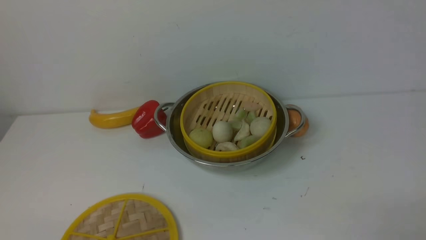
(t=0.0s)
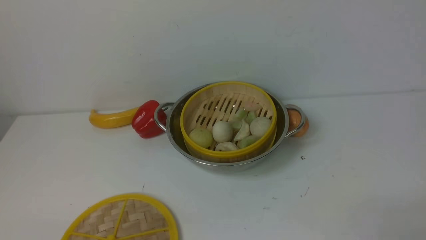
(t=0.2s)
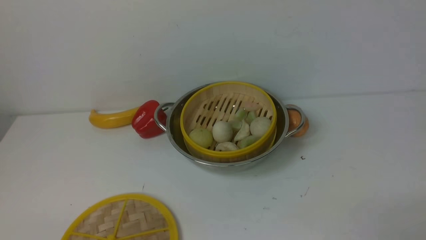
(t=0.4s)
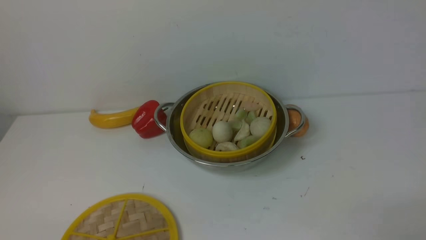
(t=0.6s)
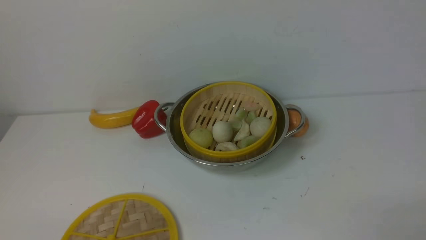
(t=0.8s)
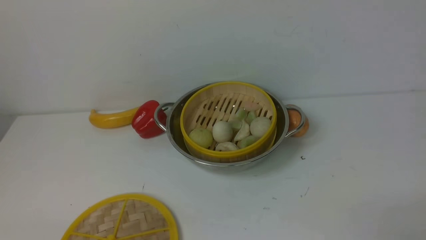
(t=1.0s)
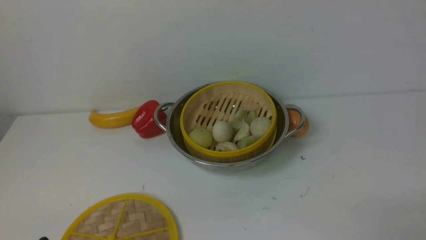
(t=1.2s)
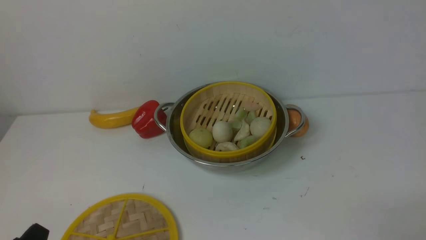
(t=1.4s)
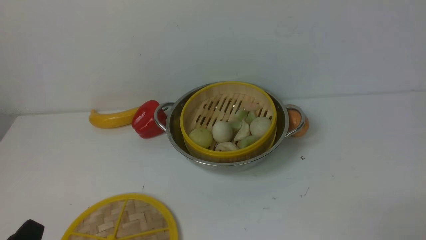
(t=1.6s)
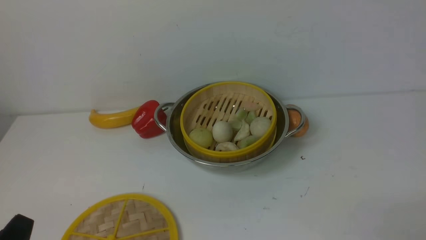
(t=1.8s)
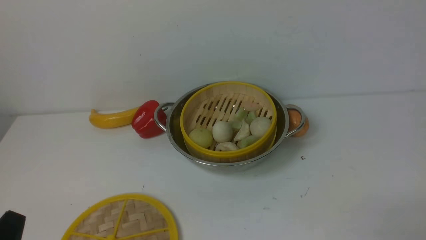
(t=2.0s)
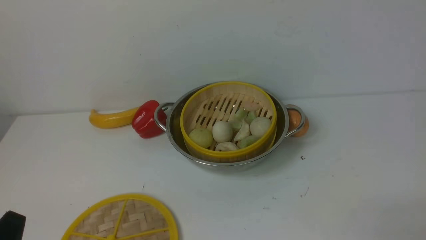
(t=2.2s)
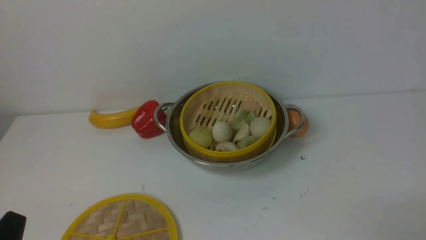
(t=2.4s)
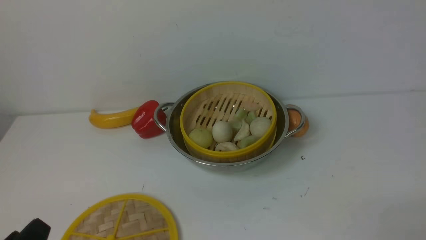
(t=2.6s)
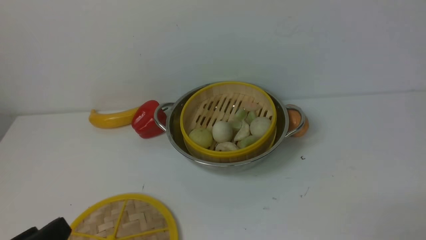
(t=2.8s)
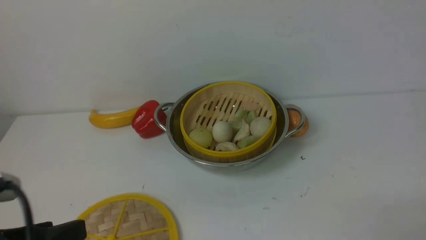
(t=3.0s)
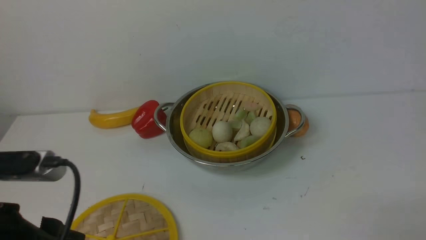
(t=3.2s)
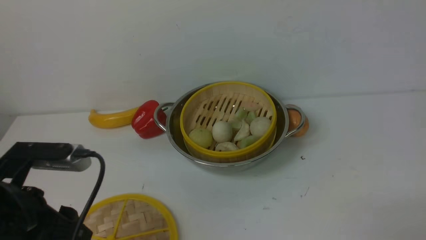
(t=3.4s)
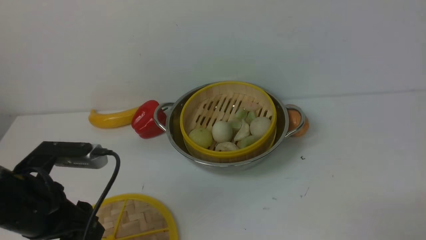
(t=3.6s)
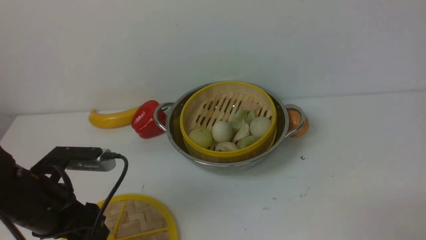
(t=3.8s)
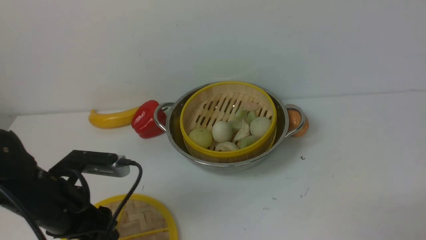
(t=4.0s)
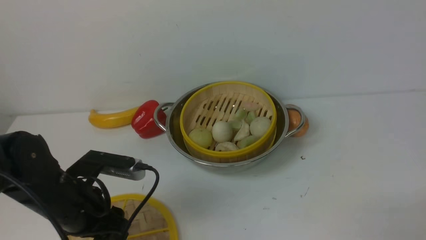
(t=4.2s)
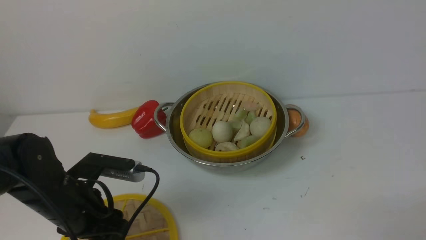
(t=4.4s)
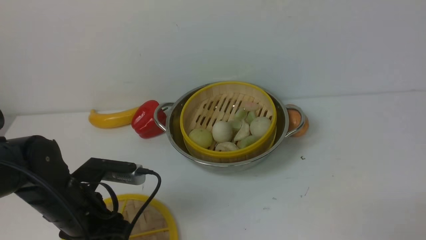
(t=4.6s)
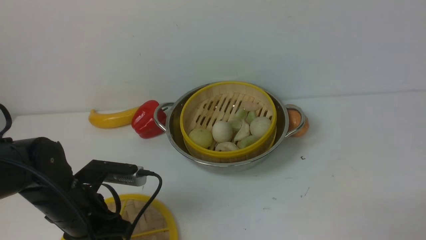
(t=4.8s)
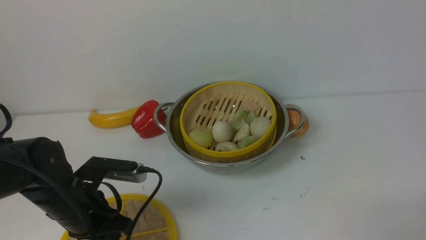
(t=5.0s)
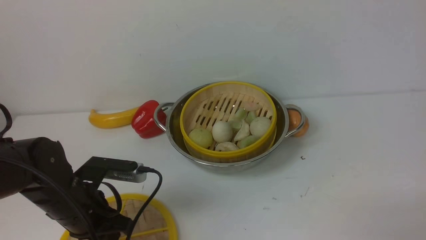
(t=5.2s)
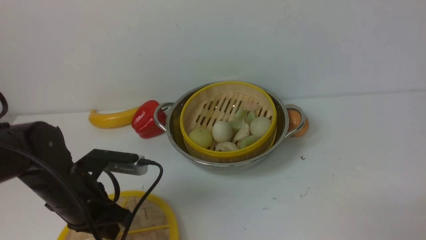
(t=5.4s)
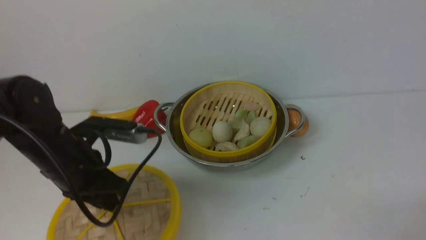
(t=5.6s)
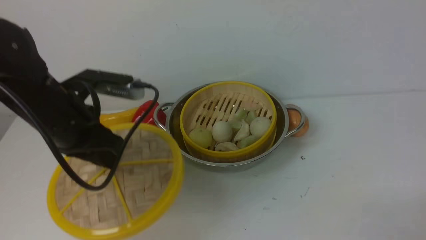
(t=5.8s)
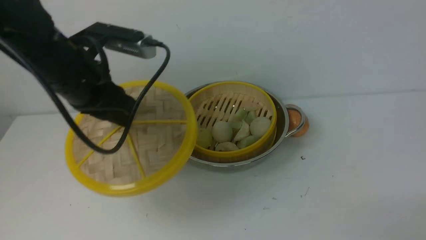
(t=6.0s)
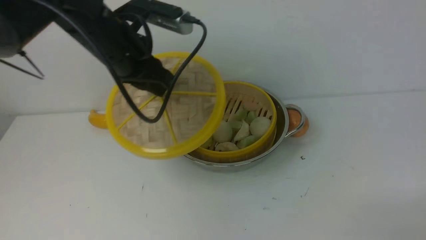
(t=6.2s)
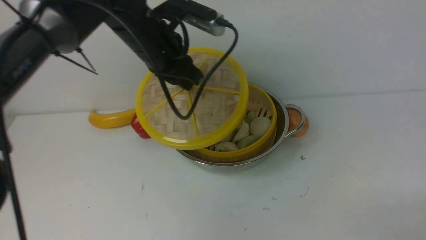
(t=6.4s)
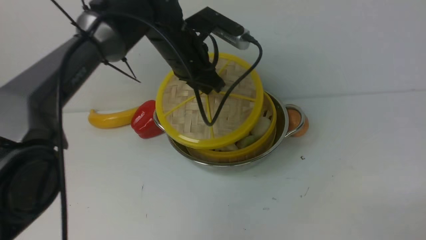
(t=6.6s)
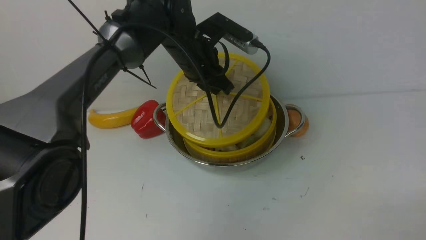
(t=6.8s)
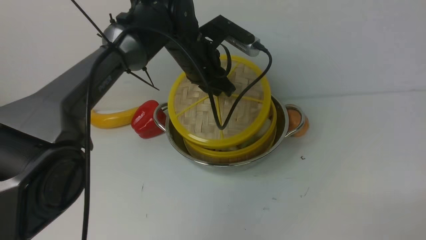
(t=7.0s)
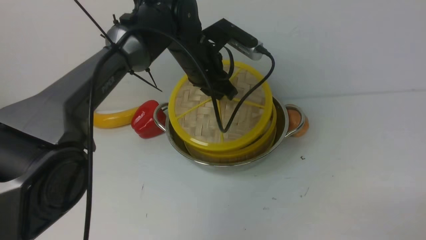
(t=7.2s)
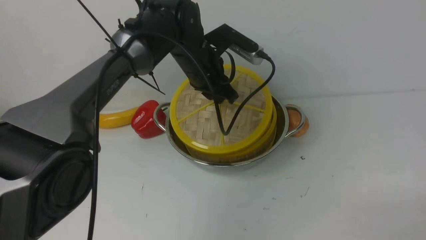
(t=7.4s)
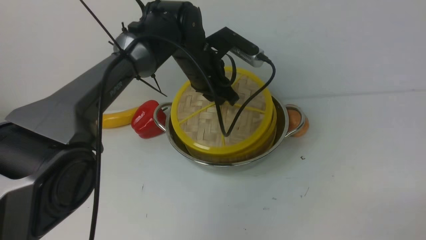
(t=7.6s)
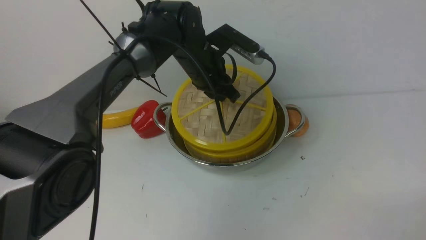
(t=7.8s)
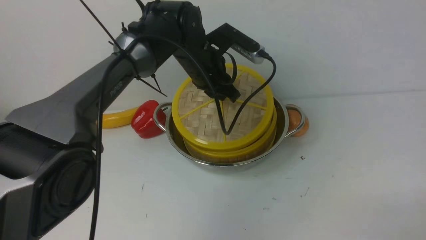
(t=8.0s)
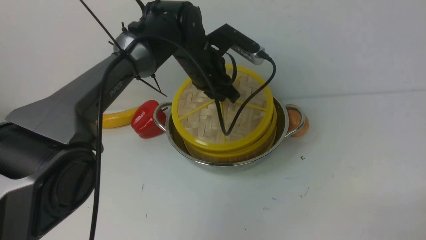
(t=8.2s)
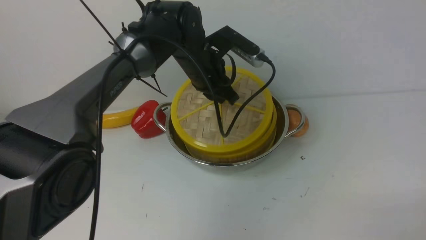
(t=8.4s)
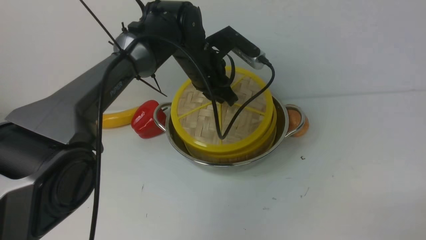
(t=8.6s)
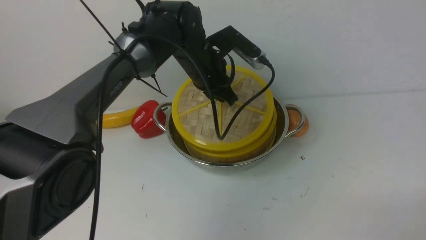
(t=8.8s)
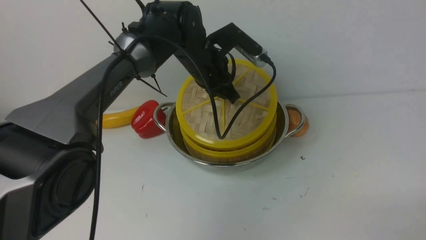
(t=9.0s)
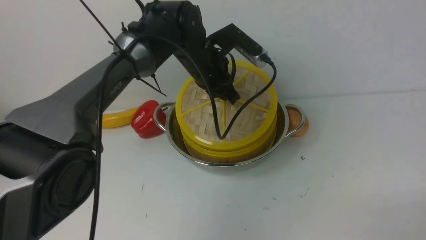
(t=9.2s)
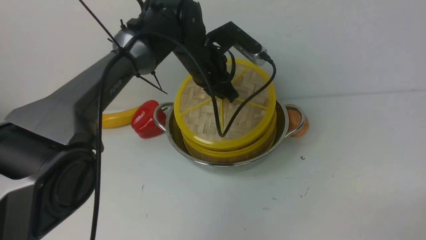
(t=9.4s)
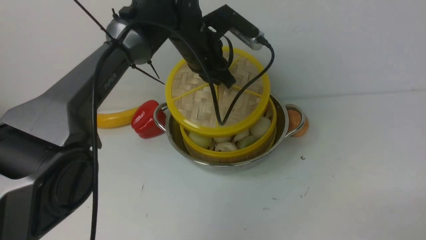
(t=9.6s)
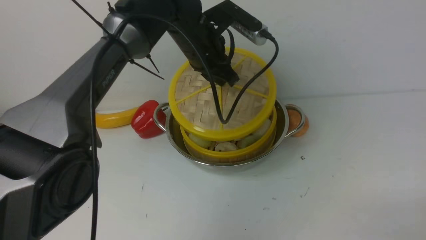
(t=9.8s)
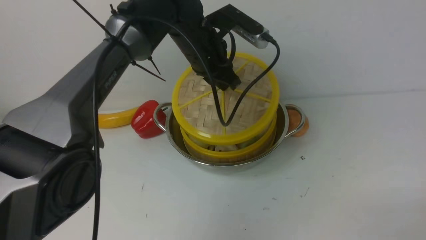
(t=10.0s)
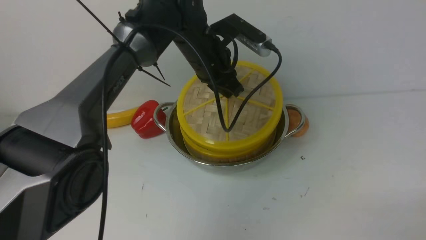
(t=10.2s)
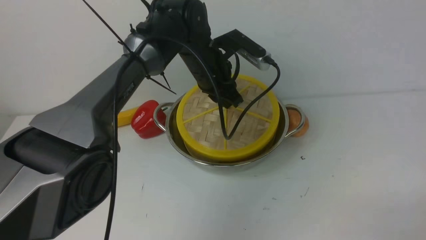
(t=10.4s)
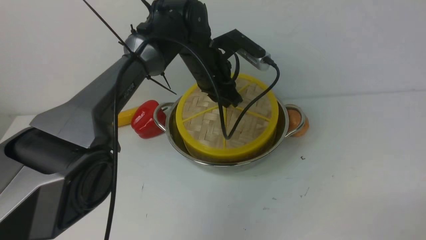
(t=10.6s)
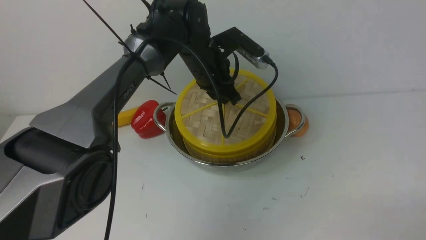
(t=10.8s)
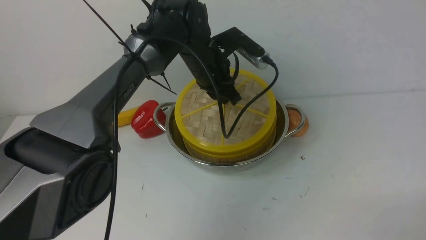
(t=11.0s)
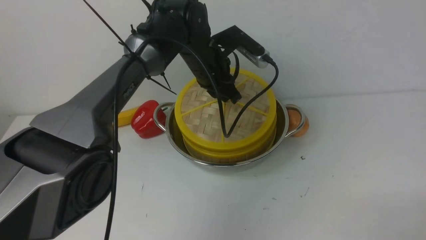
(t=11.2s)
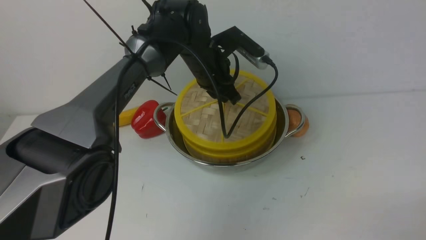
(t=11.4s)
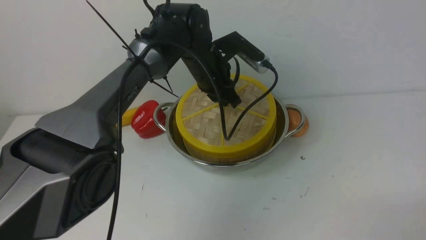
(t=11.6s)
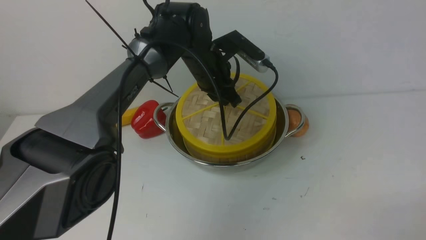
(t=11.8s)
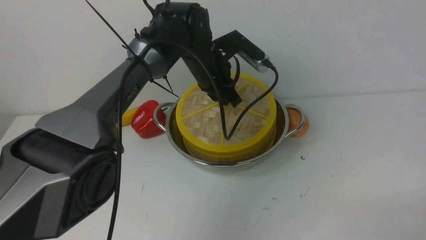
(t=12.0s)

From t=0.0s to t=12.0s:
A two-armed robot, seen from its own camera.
Task of the whole recording: place the steamer in the pot on the white table, and put the lid on the steamer.
Step, from t=0.0s to t=5.8s: use the left arm to lift the lid of the steamer.
From t=1.6s to t=3.0s: The left gripper is displaced upward by approximately 10 cm.
From t=3.0s to t=4.4s: The left gripper is displaced forward and downward by some 20 cm.
From t=4.4s to t=6.0s: The left gripper heads upward and forward, covering about 15 cm, and closes.
From t=6.0s to t=7.6s: The left gripper heads to the right and forward, covering about 20 cm.
From t=7.6s to t=12.0s: There are only small adjustments of the grippers.

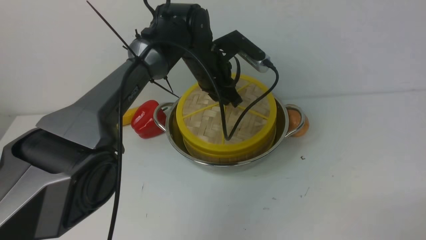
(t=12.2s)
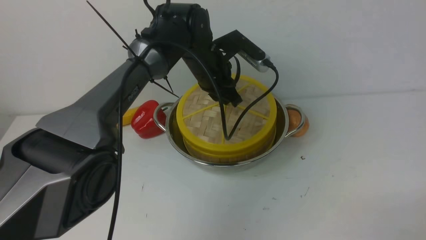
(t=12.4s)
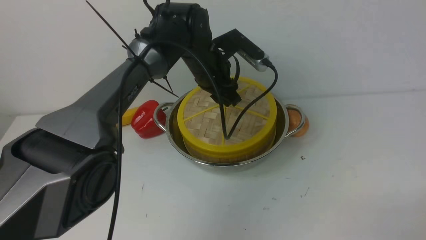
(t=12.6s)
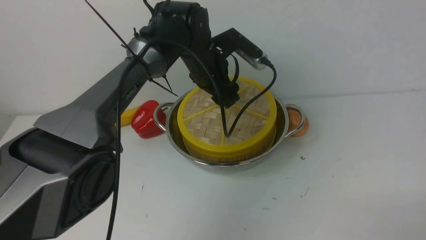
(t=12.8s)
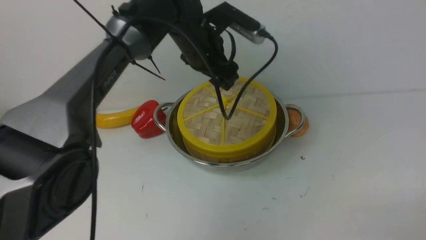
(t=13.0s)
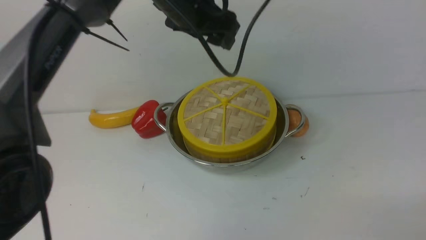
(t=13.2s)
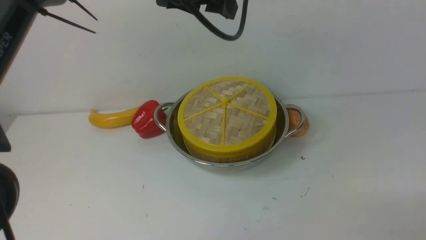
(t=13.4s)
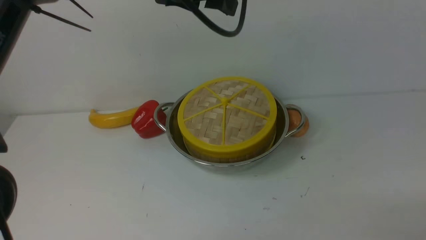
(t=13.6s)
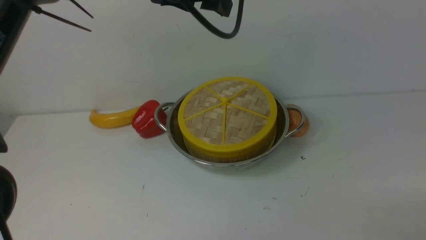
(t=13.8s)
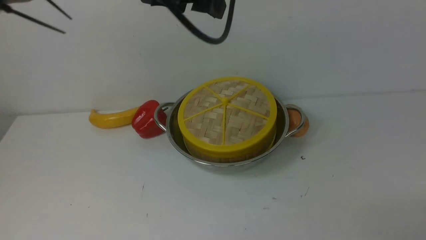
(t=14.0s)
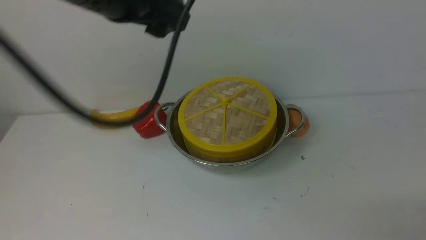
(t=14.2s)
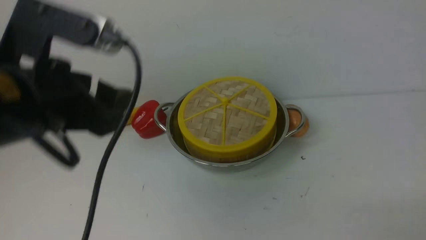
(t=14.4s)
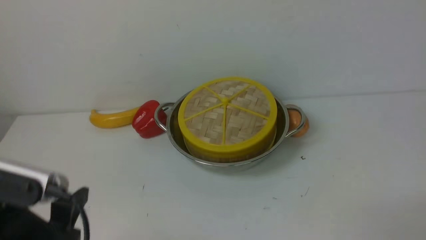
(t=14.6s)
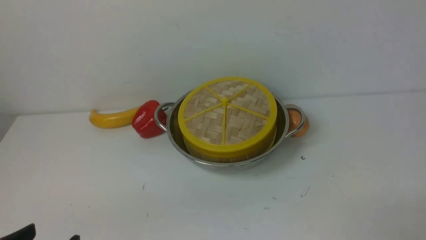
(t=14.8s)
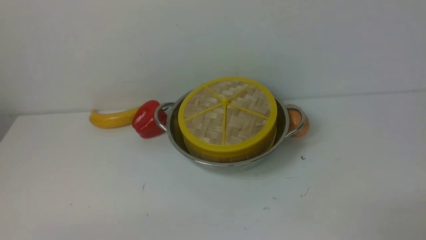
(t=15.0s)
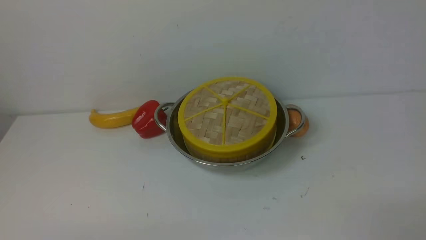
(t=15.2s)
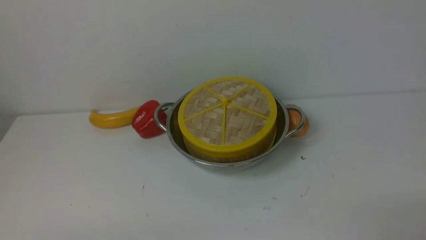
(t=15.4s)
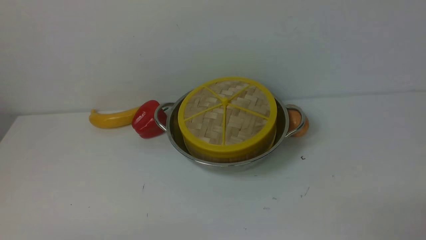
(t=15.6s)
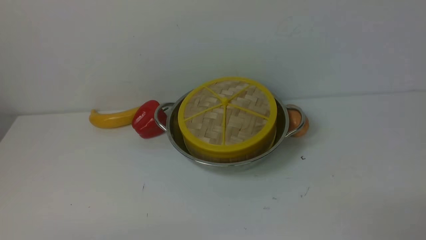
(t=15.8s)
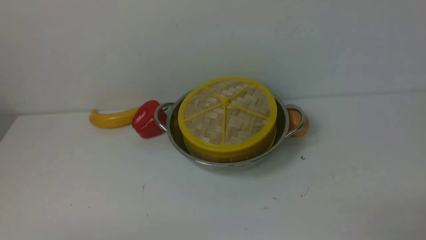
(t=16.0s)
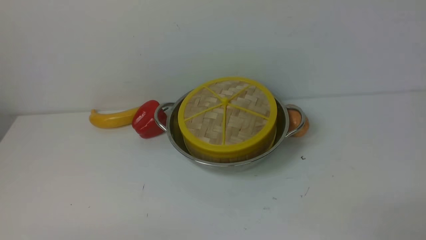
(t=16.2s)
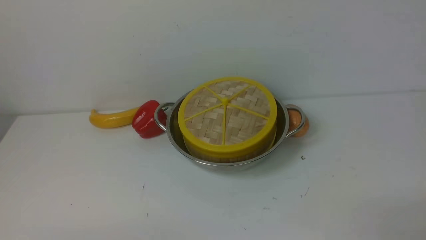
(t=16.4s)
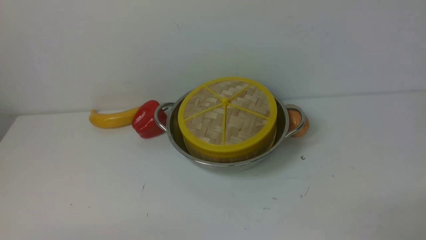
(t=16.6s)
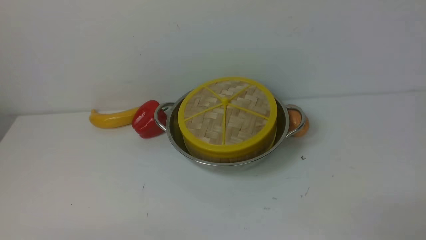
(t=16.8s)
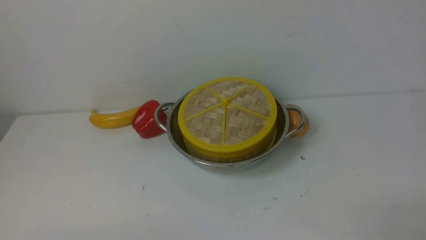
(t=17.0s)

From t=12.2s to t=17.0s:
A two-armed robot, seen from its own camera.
Task of the whole recording: place the steamer in the pot on the white table, and put the lid on the steamer.
From t=12.2s to t=13.8s: The left gripper goes roughly 20 cm upward and backward, and opens.
From t=13.8s to t=15.4s: The left gripper shifts approximately 50 cm backward, downward and to the left.
From t=15.4s to t=17.0s: The two grippers keep their place.
